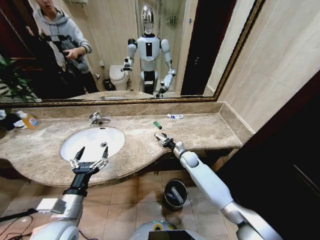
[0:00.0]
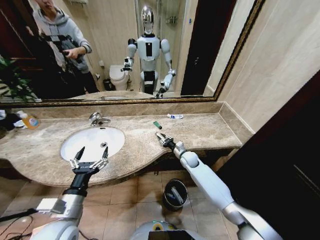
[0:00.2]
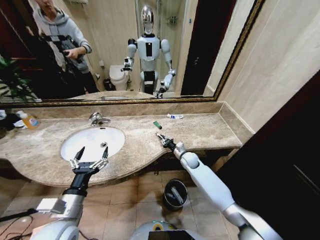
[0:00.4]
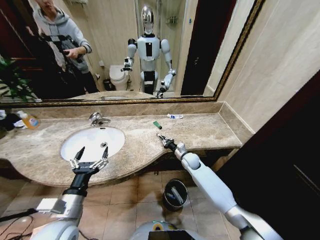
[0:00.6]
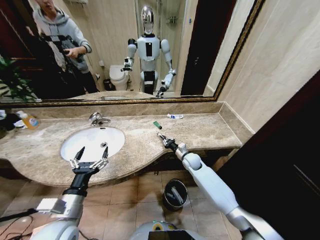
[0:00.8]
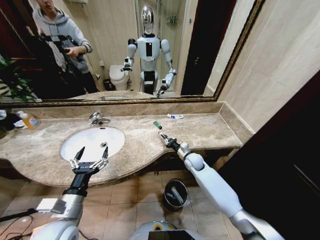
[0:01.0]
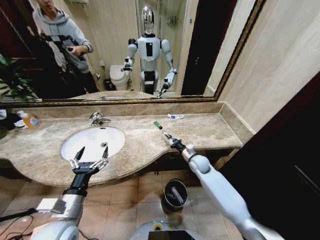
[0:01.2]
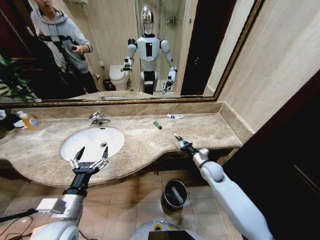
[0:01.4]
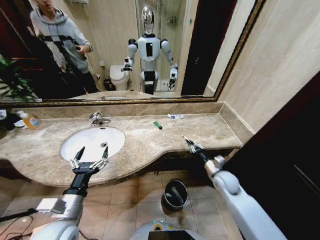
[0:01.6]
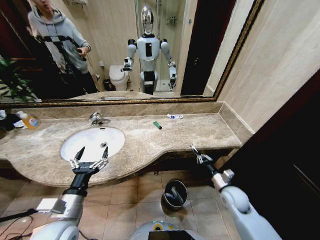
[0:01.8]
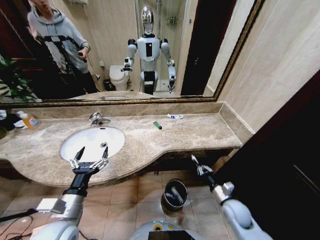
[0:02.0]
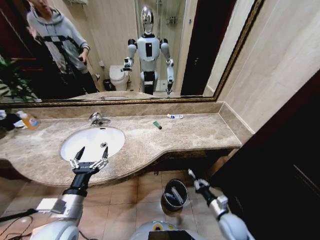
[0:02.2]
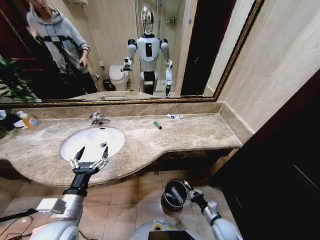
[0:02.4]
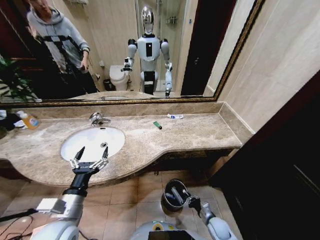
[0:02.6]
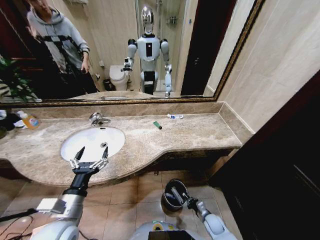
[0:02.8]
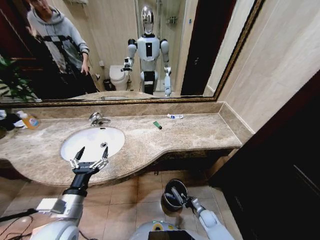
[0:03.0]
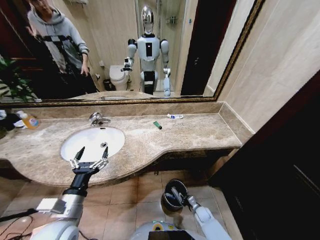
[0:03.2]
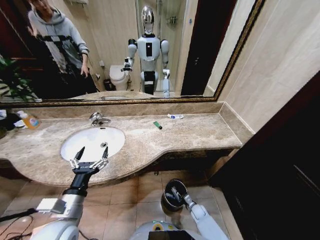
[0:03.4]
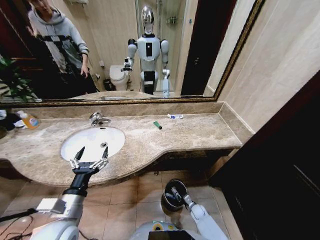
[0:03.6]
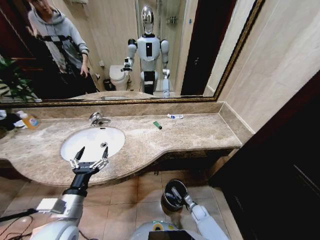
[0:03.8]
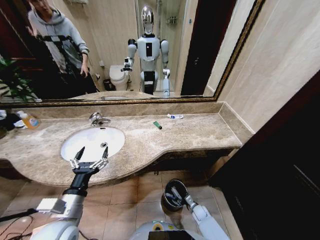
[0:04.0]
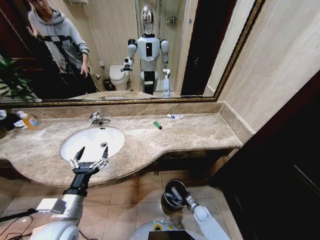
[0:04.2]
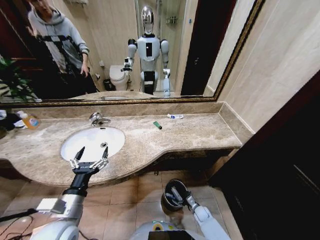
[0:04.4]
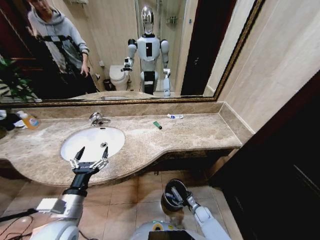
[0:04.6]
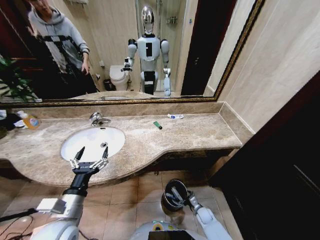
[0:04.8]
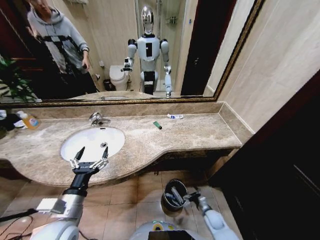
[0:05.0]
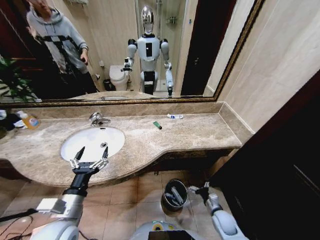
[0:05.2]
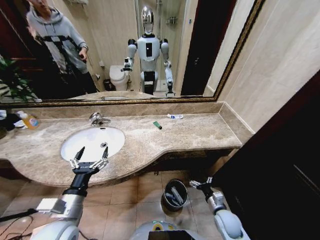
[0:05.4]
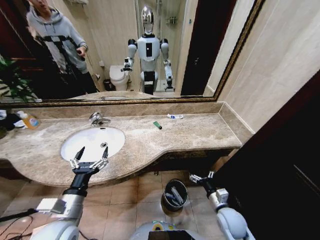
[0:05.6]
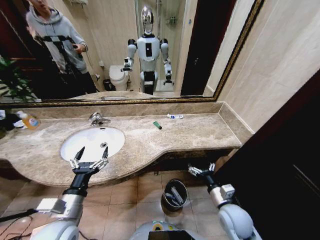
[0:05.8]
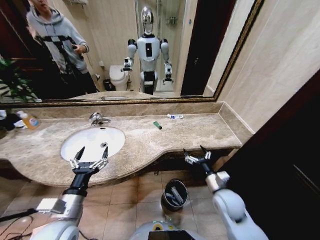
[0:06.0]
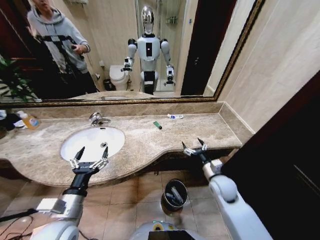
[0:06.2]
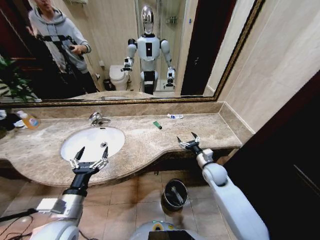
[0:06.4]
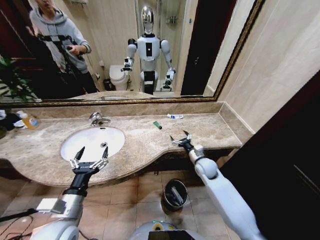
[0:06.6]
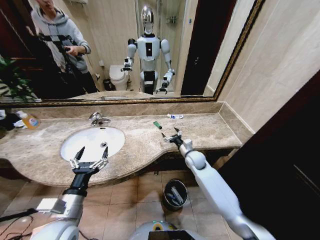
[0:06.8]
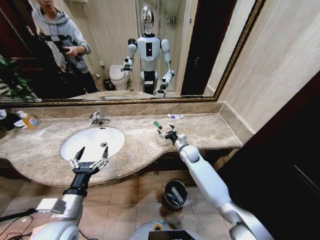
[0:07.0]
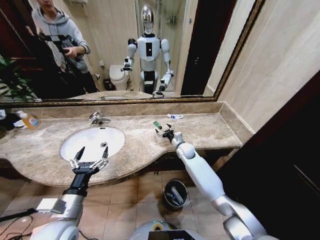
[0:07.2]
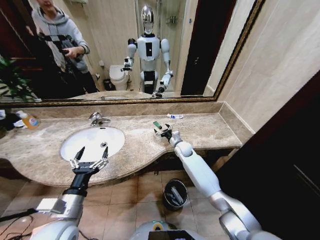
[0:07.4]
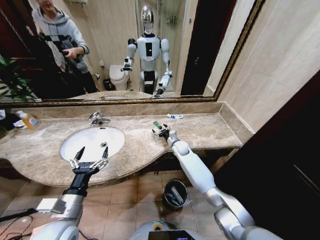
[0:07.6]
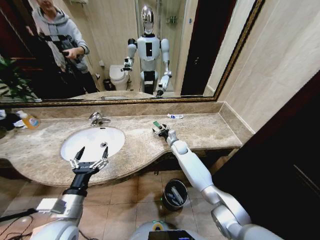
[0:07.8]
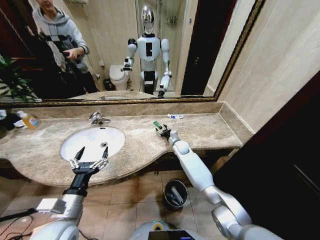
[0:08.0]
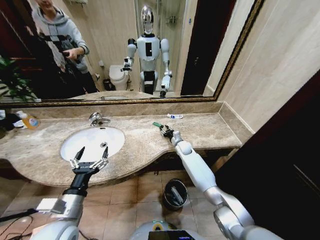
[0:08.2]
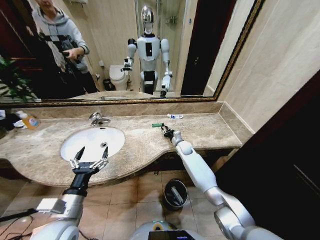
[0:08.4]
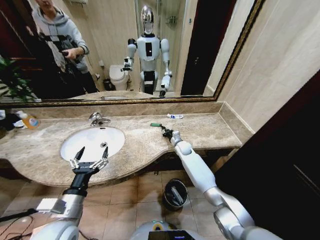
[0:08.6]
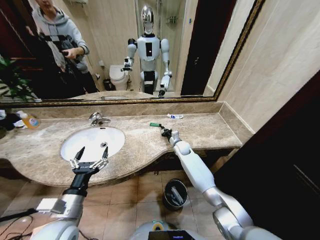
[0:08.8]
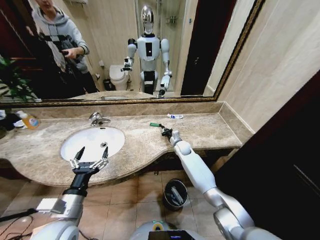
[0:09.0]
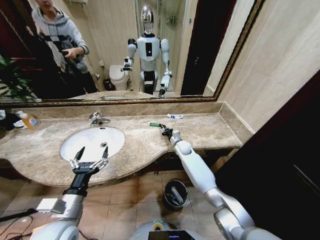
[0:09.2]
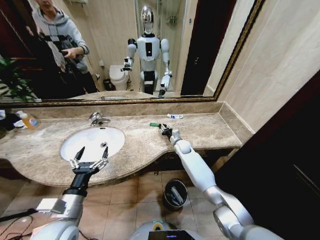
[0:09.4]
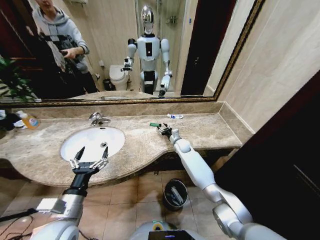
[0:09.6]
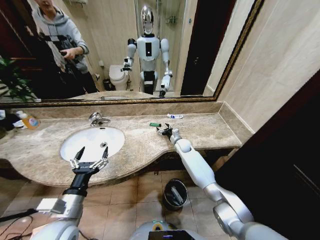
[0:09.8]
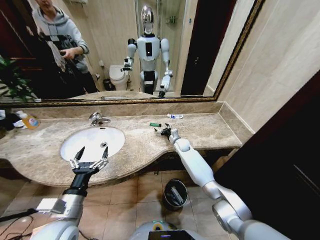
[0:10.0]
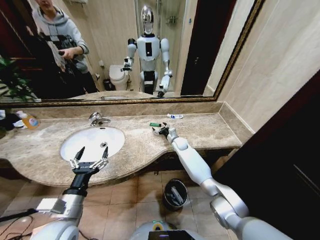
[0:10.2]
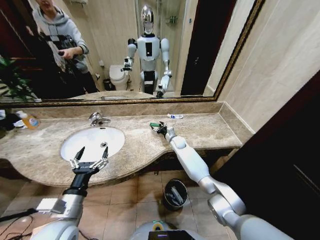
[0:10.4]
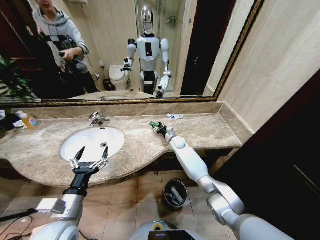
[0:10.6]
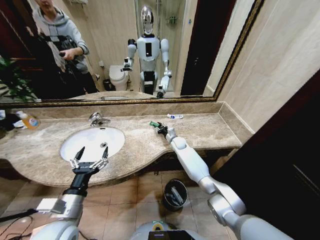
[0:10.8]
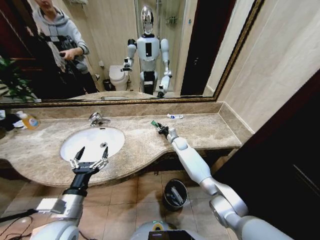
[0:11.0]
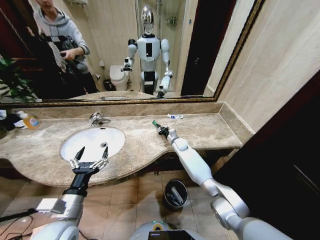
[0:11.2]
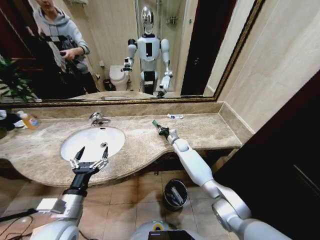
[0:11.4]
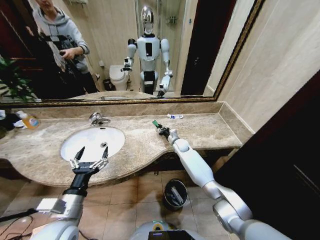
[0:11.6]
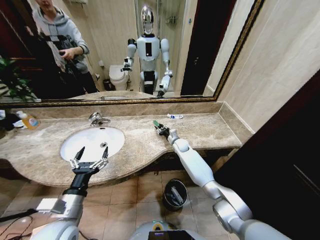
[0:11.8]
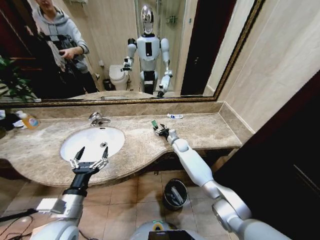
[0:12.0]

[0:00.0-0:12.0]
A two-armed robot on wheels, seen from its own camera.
Task of the whole recording: Pick up the trash from the sink and place it in the trash bin.
0:00.0 to 0:01.6: The right gripper shifts some 20 cm backward and to the right, and closes.
0:01.6 to 0:03.0: The right gripper travels downward by some 25 cm.
0:03.0 to 0:04.4: The right gripper opens up.
0:04.4 to 0:06.0: The right gripper shifts some 30 cm upward.
0:06.0 to 0:07.6: The right gripper is displaced forward and to the left by about 30 cm.
0:07.6 to 0:09.0: The right gripper closes up.
0:09.0 to 0:10.4: The right gripper opens.
0:10.4 to 0:12.0: The right gripper closes, then reopens.

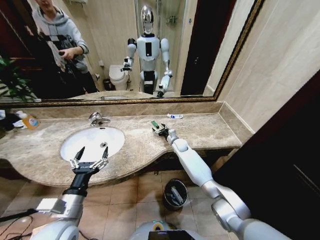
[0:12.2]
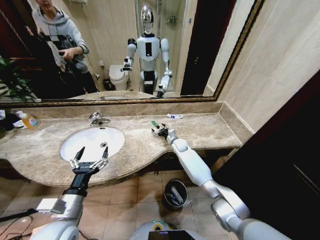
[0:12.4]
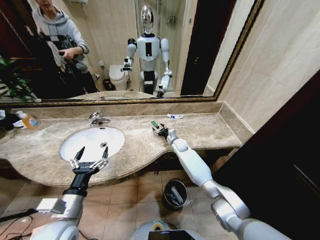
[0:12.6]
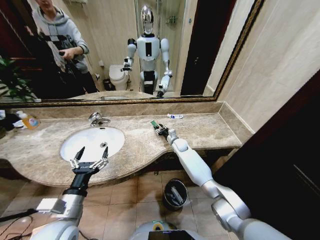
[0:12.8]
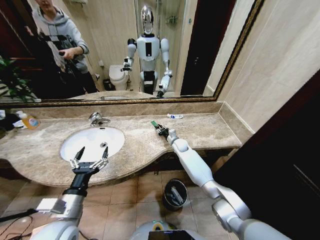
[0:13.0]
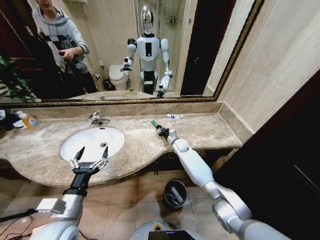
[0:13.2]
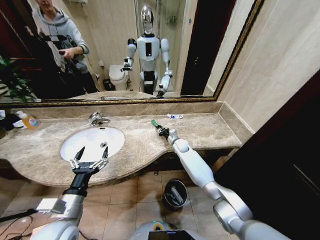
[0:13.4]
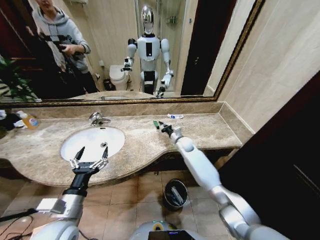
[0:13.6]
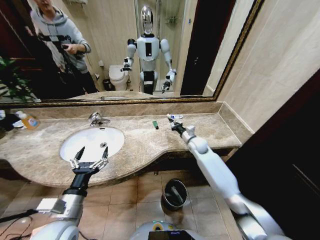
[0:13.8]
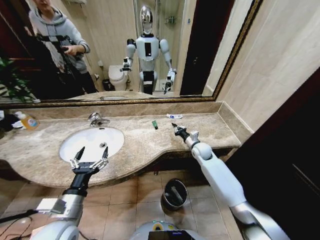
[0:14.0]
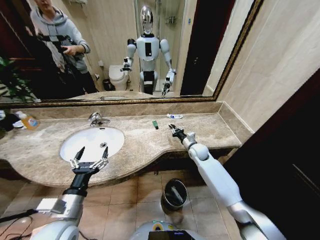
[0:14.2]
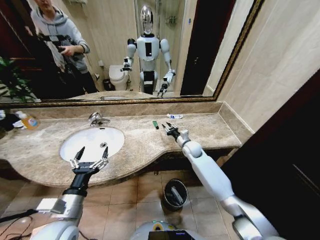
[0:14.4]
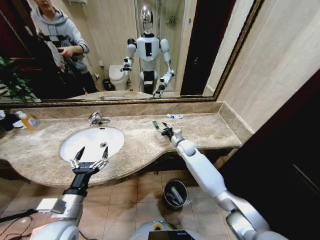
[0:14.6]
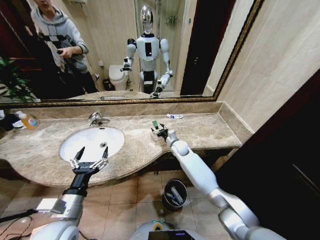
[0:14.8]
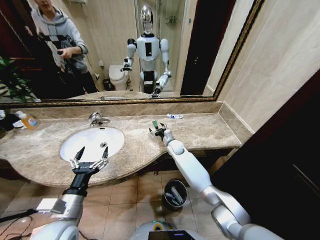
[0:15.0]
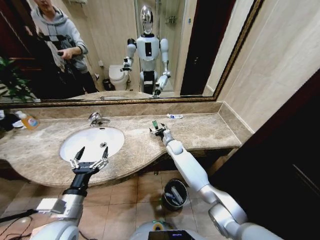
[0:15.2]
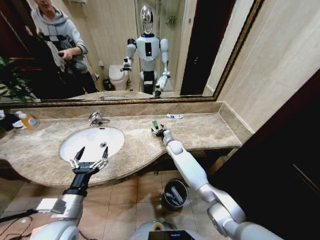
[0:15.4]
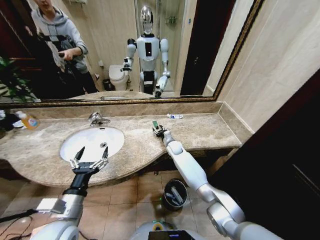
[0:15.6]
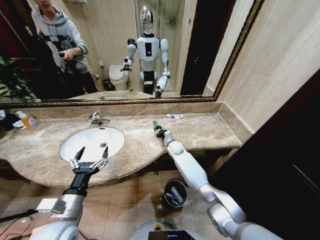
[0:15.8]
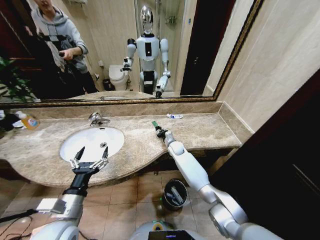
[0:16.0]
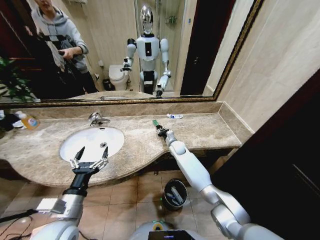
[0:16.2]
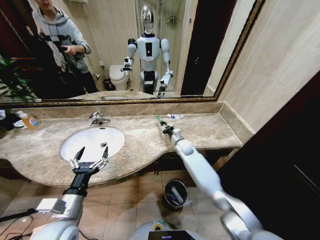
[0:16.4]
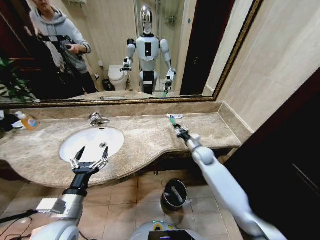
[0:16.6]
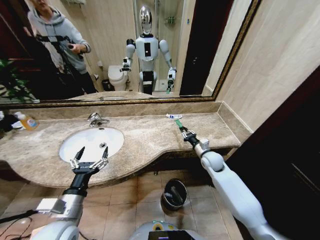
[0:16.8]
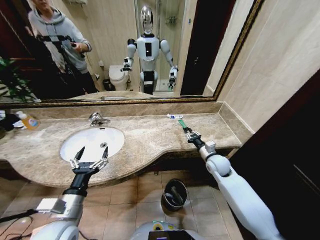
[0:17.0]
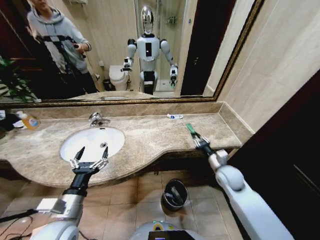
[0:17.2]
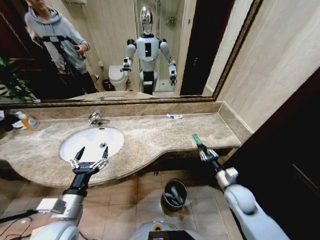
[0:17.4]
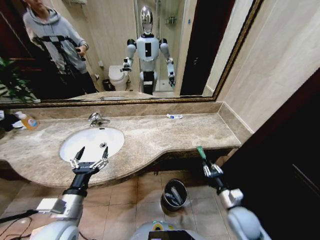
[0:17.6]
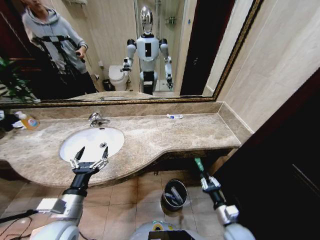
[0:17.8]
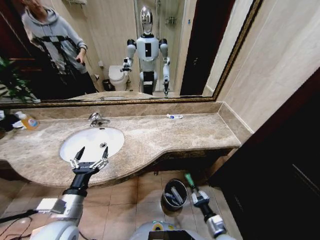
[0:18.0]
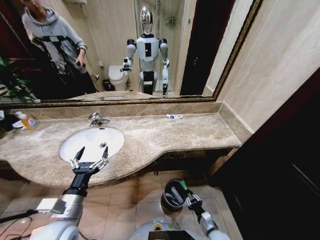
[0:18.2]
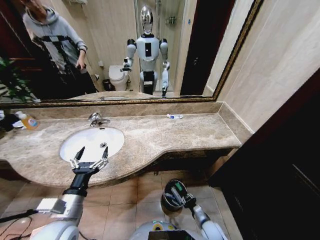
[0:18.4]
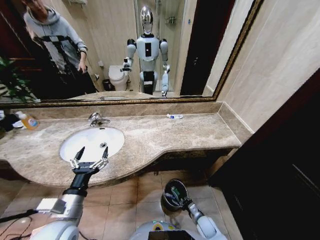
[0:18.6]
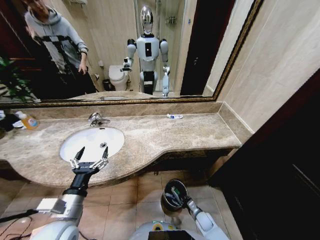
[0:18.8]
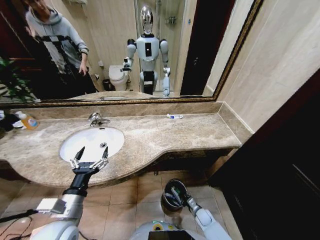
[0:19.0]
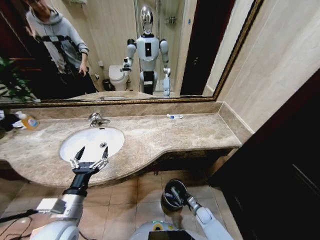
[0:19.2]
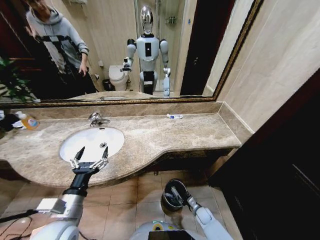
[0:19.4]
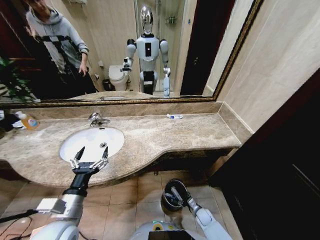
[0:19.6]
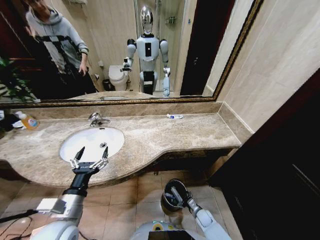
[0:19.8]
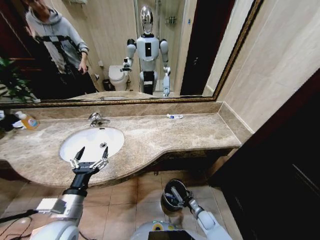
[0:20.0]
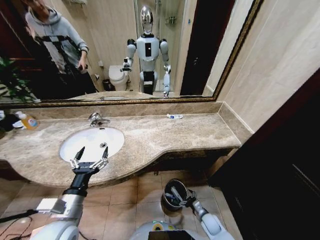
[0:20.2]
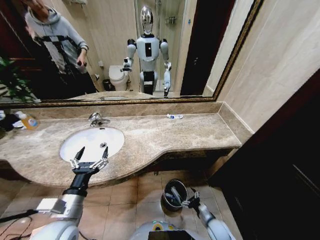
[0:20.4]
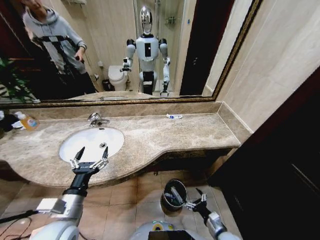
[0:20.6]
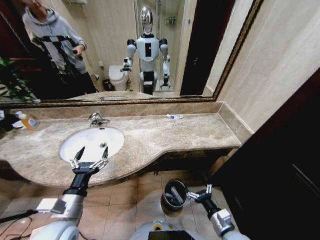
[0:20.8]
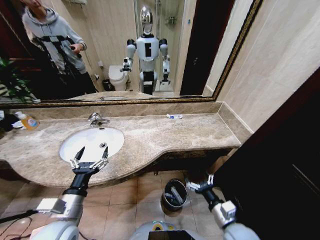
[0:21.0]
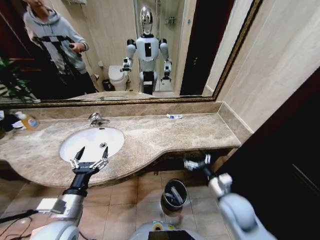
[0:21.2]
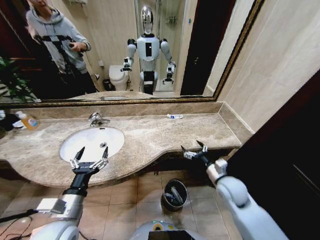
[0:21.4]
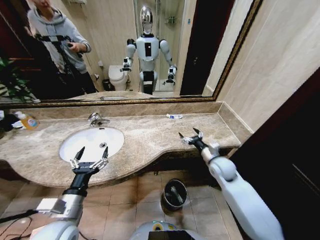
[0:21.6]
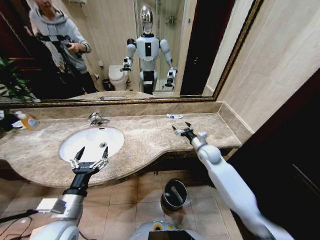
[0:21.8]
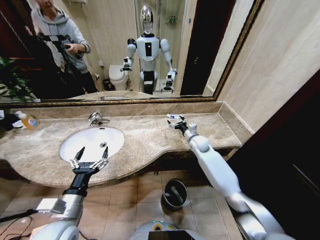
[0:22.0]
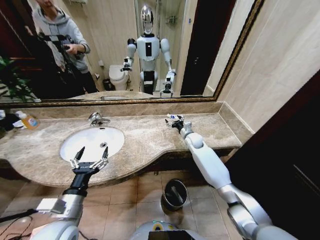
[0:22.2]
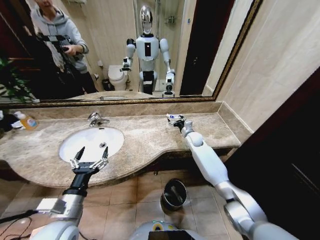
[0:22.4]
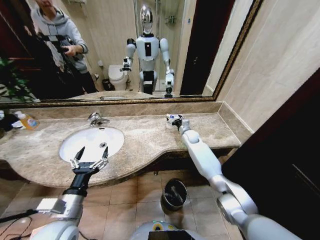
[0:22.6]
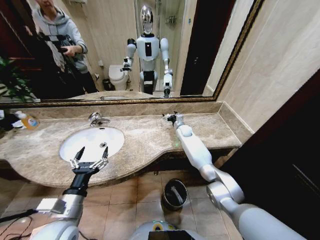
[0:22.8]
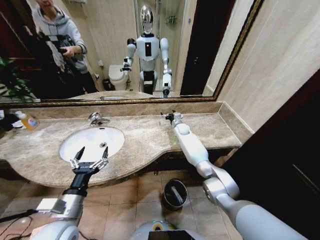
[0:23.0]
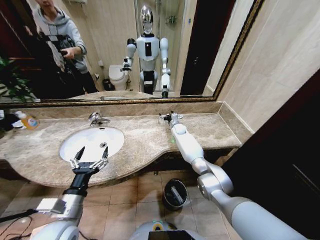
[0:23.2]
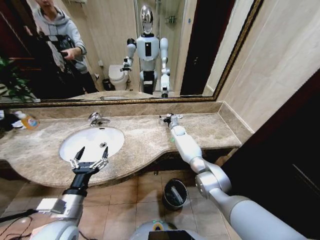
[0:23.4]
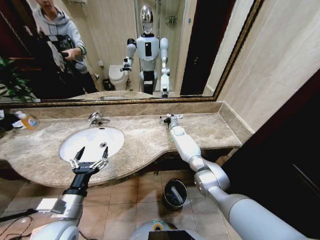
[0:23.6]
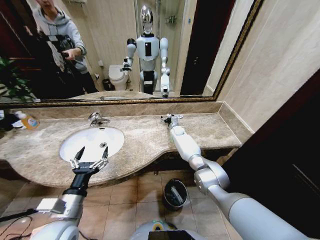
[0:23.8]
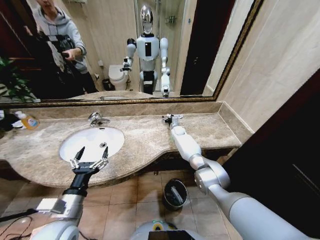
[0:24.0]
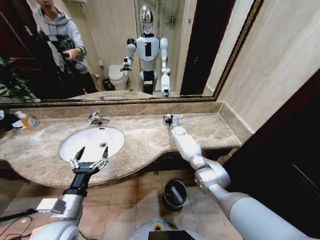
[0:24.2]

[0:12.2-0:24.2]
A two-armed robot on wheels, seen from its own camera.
Task of the whole recording: Pick up the trash from the sink and place it in the trash bin.
0:12.2 to 0:13.8: The right gripper heads to the right, upward and backward, covering some 10 cm, and closes its fingers.
0:13.8 to 0:15.2: The right gripper shifts approximately 15 cm to the left and downward, and opens up.
0:15.2 to 0:16.6: The right gripper heads to the right and backward, covering some 15 cm, and closes its fingers.
0:16.6 to 0:18.2: The right gripper heads backward and downward, covering some 40 cm.
0:18.2 to 0:19.8: The right gripper heads downward and forward, covering approximately 15 cm, and opens up.
0:19.8 to 0:21.2: The right gripper is displaced upward by about 35 cm.
0:21.2 to 0:22.6: The right gripper shifts some 40 cm forward.
0:22.6 to 0:24.2: The right gripper moves forward, approximately 5 cm.
